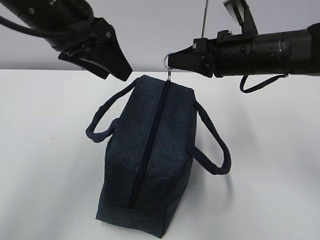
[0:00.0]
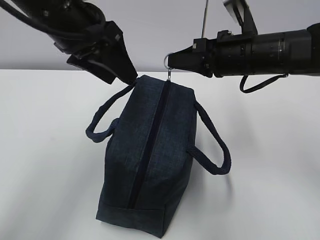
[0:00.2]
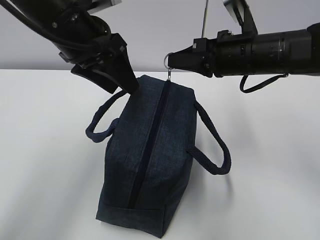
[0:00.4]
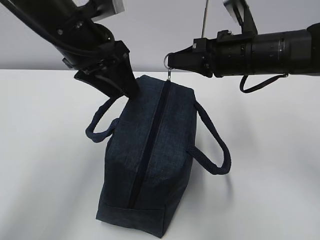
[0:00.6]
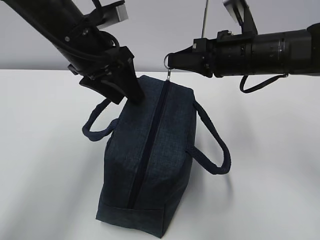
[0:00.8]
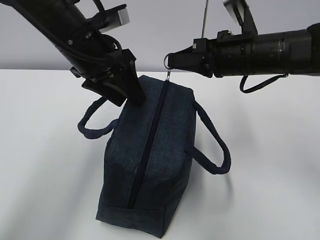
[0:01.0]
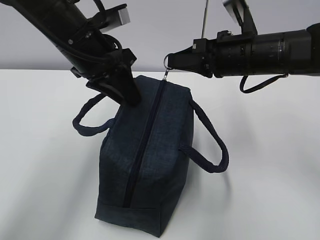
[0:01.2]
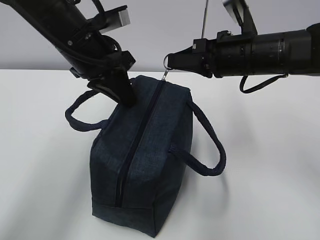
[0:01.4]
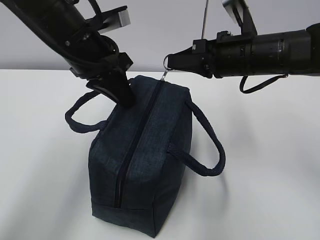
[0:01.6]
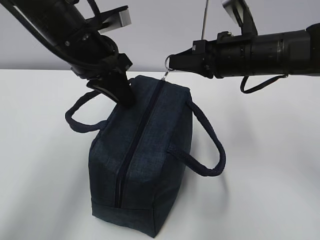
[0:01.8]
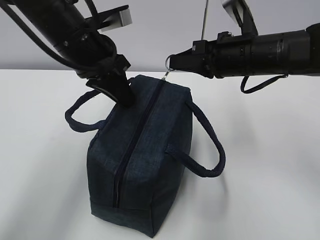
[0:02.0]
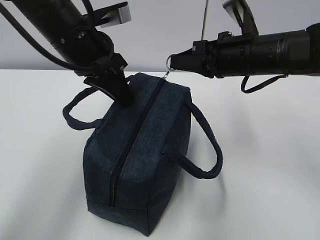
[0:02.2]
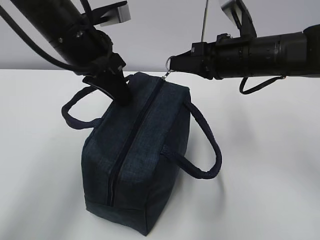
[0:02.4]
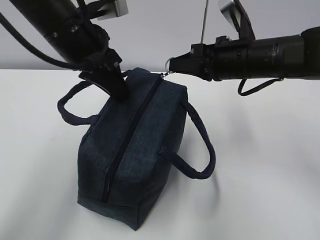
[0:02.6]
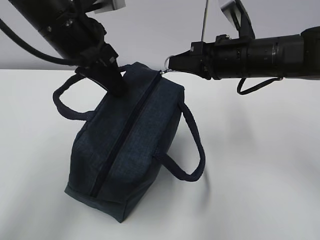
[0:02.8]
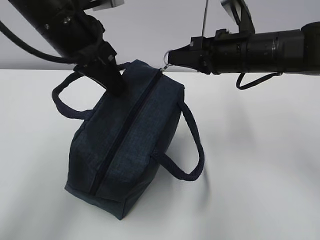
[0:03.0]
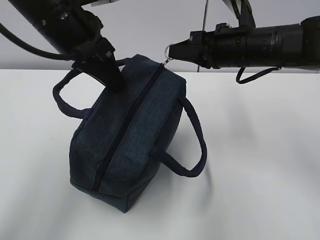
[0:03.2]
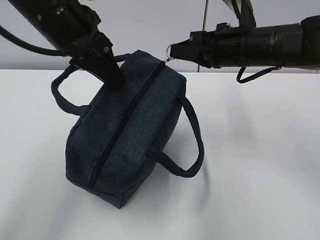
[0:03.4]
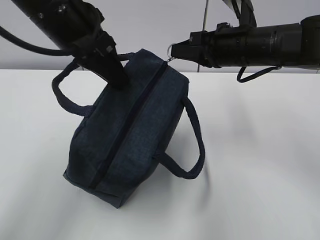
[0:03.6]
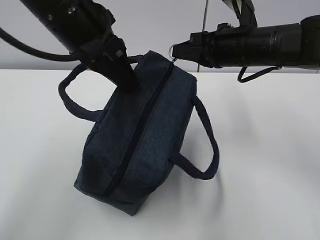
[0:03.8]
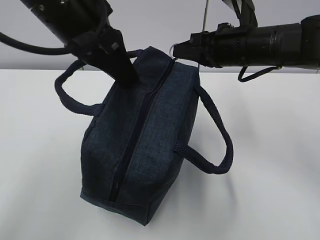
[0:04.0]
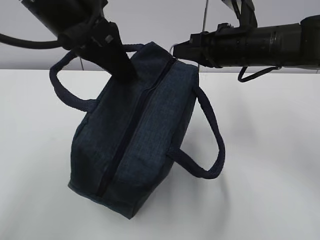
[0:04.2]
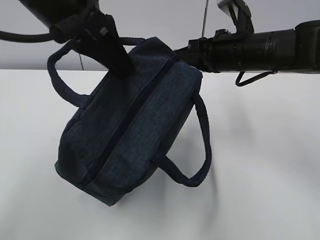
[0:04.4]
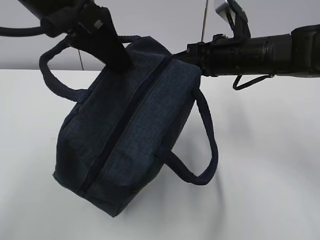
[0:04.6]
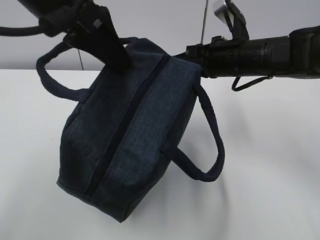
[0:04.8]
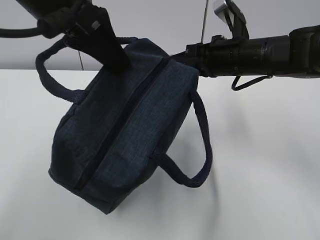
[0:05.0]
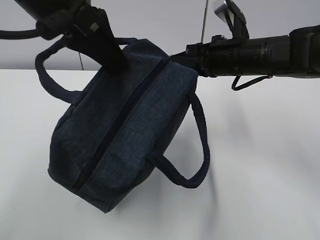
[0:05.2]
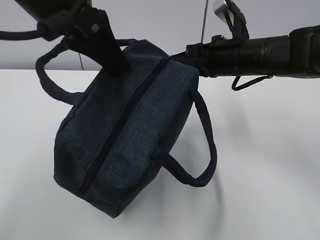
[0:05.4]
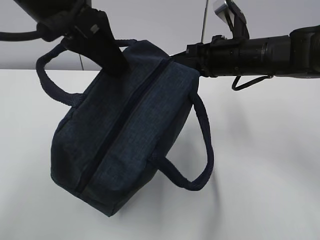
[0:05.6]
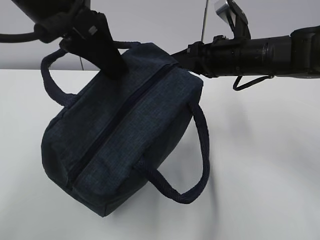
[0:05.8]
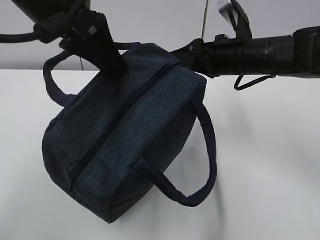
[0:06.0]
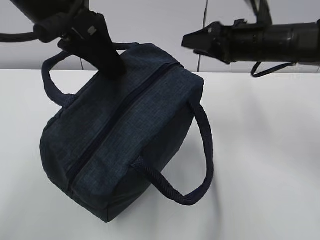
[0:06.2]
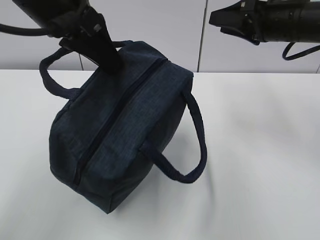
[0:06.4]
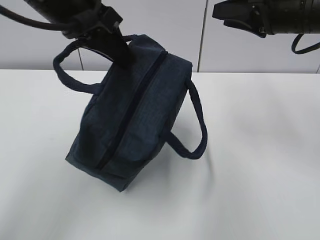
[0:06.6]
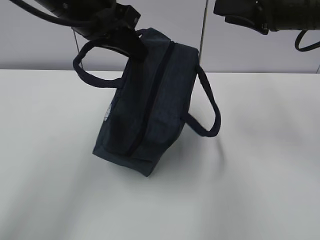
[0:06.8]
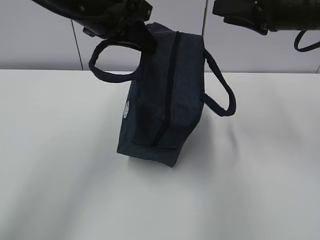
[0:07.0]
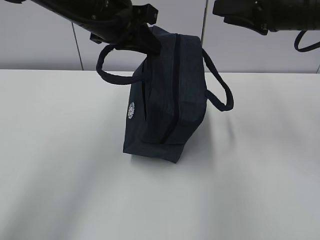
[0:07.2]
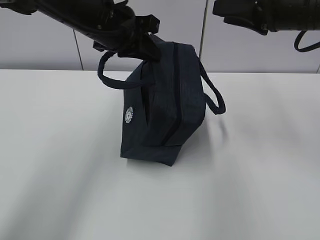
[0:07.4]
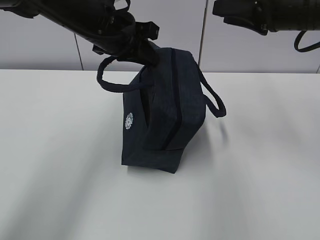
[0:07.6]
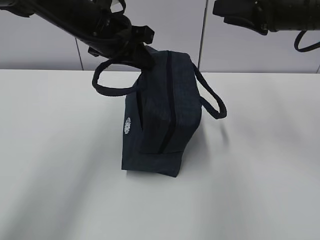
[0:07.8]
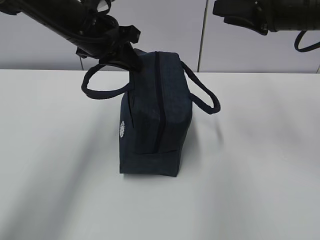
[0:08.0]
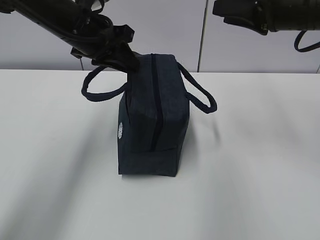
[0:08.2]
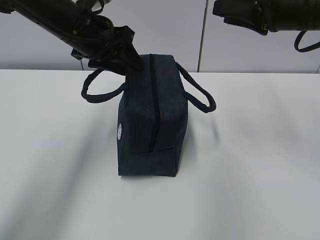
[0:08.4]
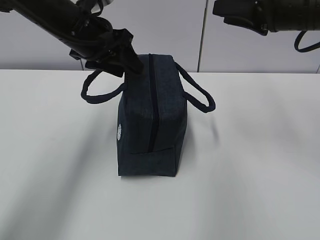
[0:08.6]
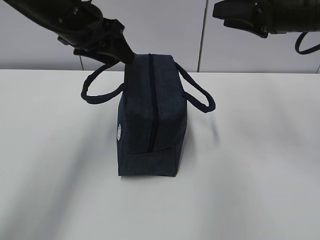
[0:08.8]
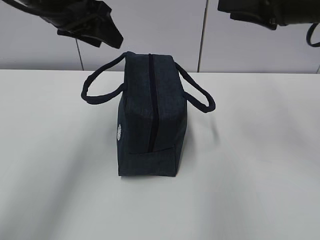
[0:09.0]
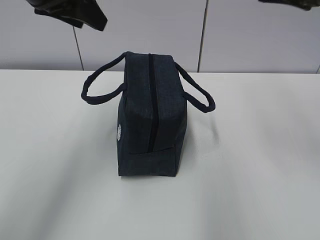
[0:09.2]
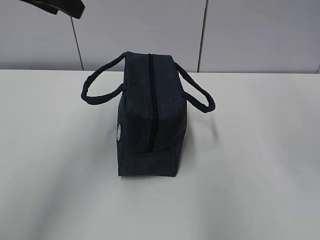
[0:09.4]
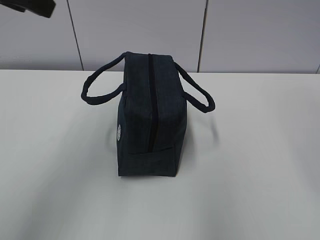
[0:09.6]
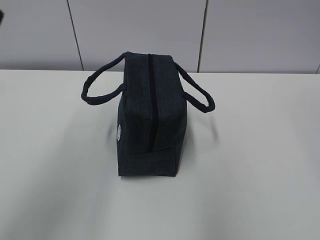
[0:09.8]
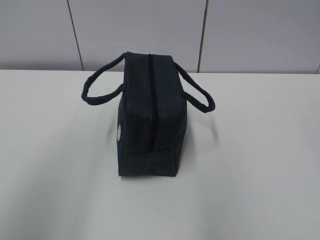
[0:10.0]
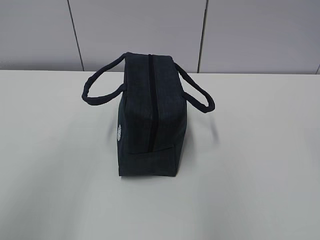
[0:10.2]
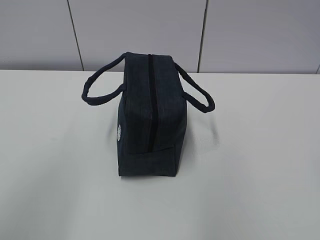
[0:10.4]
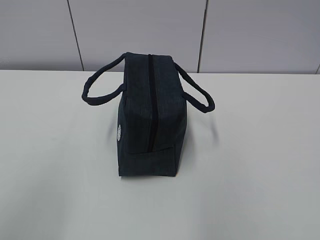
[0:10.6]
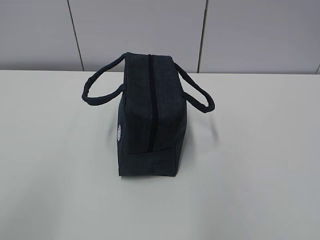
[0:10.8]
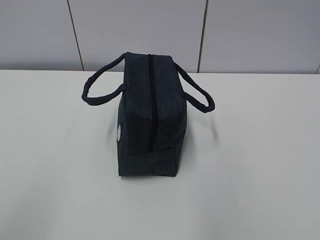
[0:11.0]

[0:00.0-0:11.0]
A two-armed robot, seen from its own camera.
0:00.0 to 0:01.6: The left gripper travels downward by some 5 cm, and closes up.
0:03.2 to 0:04.8: The left gripper is displaced upward and backward by approximately 10 cm.
0:04.8 to 0:06.2: The right gripper opens its fingers.
0:06.2 to 0:07.8: The left gripper is displaced forward and downward by some 15 cm; the right gripper travels upward by some 5 cm.
0:07.8 to 0:09.4: The left gripper moves upward, to the left and backward, roughly 15 cm, and opens up; the right gripper shifts about 10 cm upward and backward.
0:09.4 to 0:11.0: The right gripper moves backward, approximately 30 cm. The left gripper is displaced backward and to the left by approximately 35 cm.

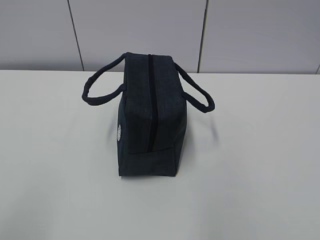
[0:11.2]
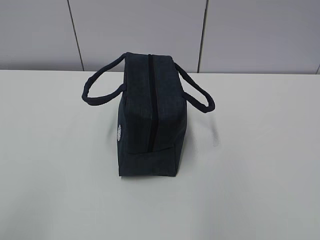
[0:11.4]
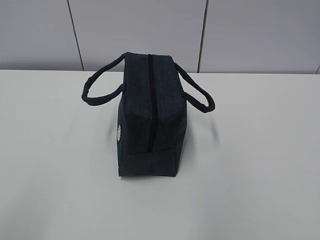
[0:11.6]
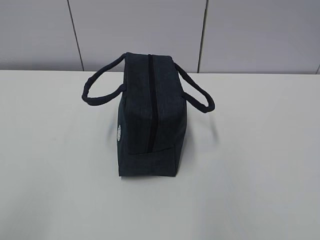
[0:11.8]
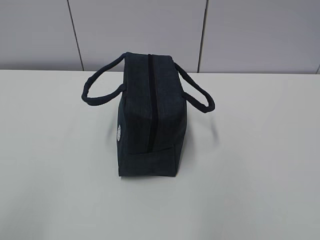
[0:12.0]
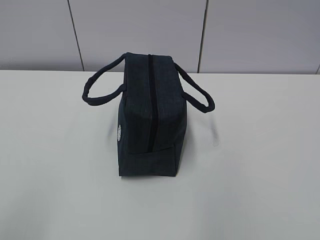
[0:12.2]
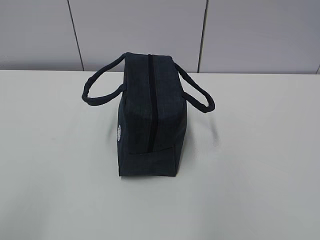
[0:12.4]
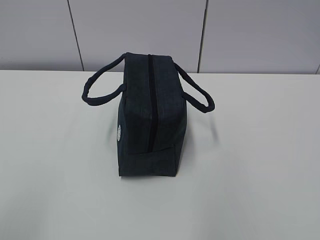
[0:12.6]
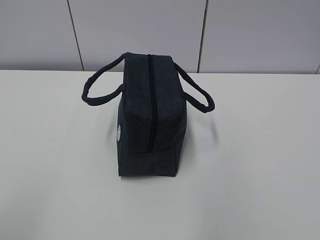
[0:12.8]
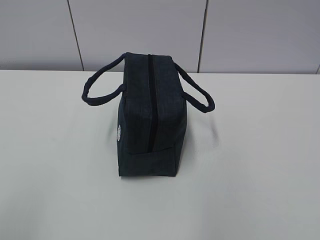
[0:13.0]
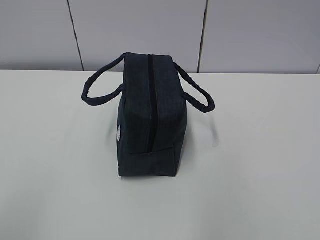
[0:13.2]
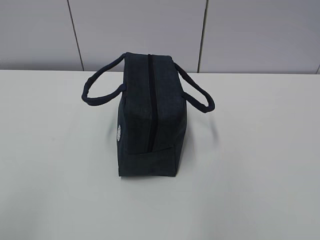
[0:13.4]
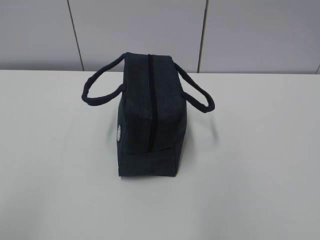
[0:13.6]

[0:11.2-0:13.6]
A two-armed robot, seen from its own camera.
0:11.2 to 0:12.4: Both grippers stay put.

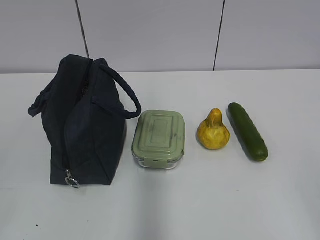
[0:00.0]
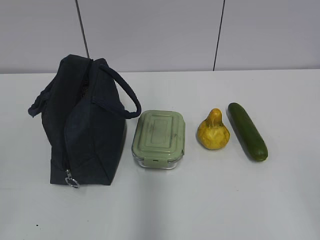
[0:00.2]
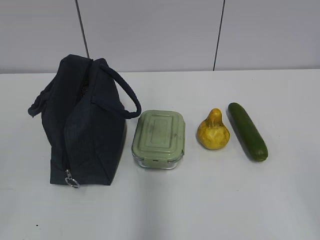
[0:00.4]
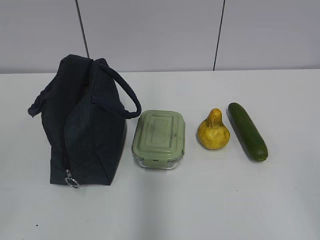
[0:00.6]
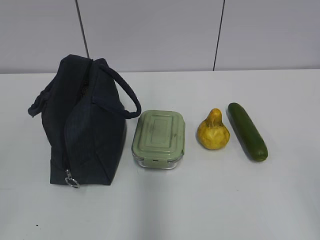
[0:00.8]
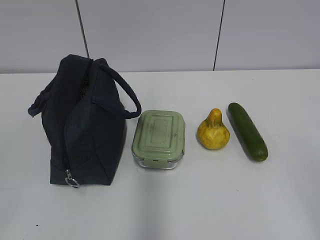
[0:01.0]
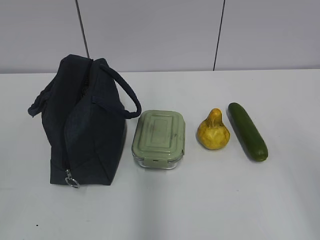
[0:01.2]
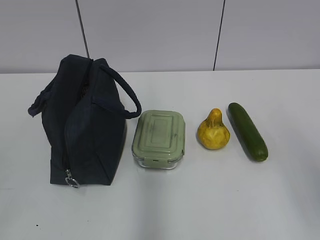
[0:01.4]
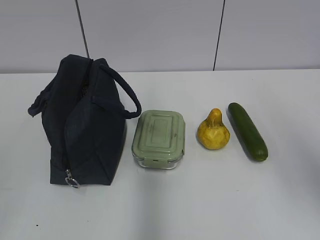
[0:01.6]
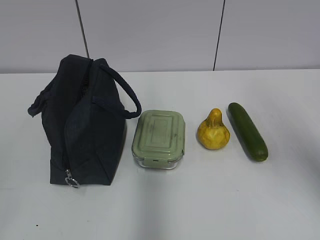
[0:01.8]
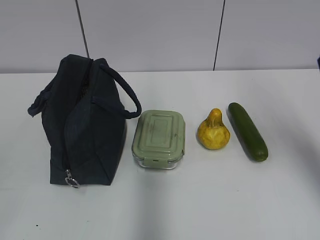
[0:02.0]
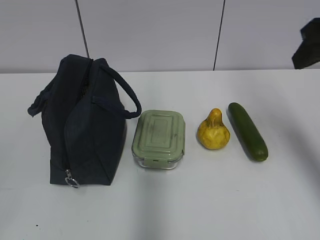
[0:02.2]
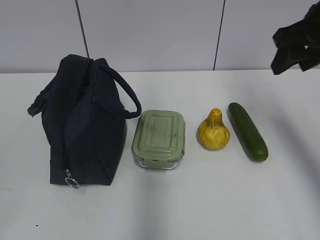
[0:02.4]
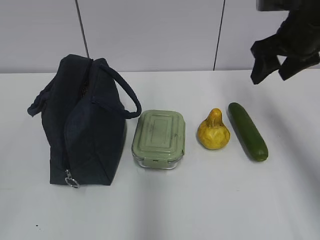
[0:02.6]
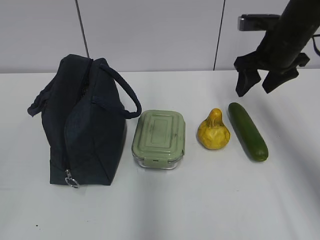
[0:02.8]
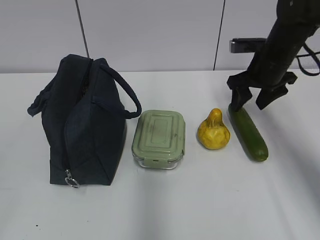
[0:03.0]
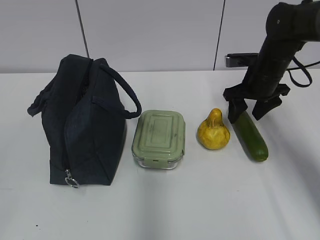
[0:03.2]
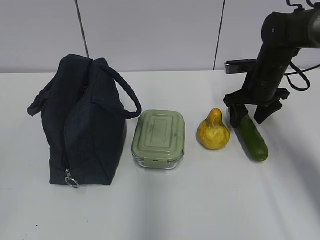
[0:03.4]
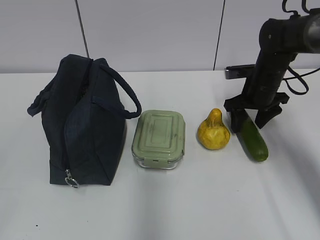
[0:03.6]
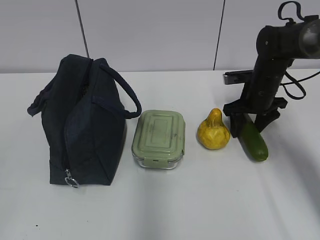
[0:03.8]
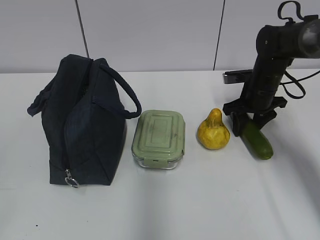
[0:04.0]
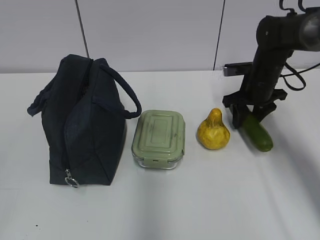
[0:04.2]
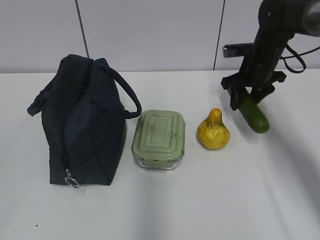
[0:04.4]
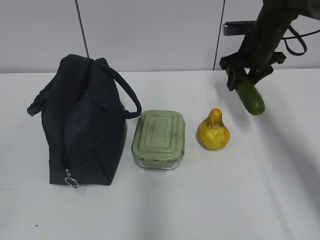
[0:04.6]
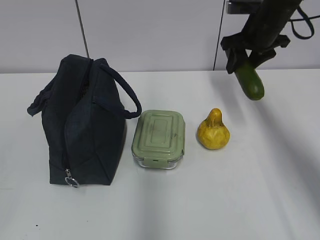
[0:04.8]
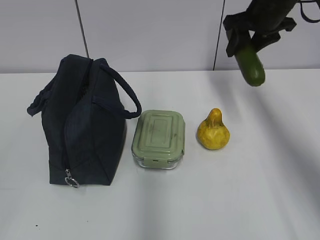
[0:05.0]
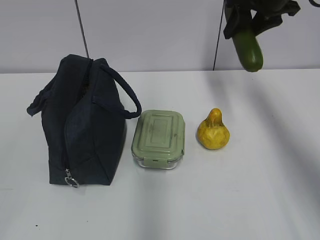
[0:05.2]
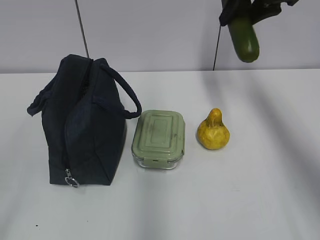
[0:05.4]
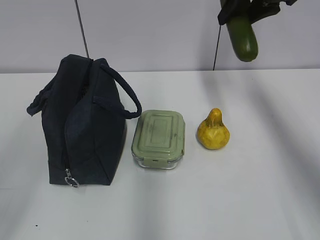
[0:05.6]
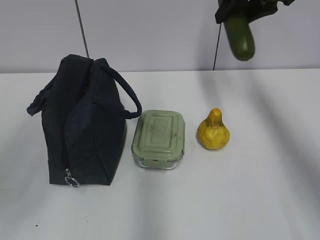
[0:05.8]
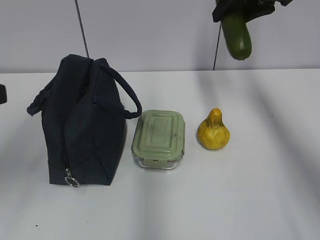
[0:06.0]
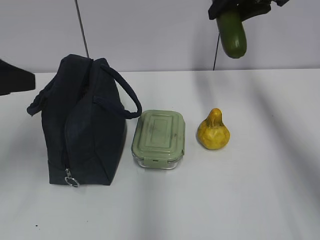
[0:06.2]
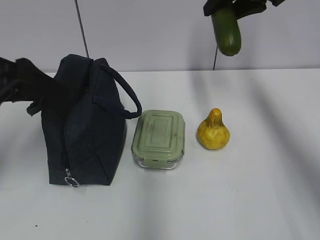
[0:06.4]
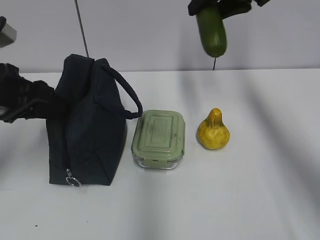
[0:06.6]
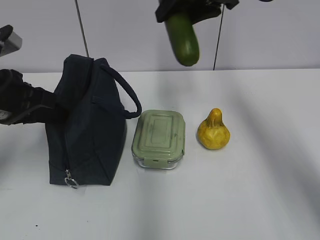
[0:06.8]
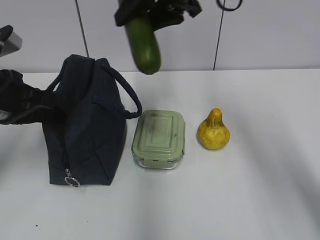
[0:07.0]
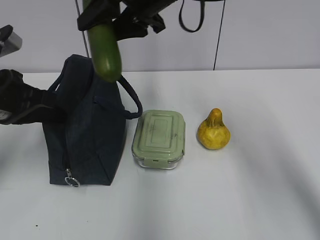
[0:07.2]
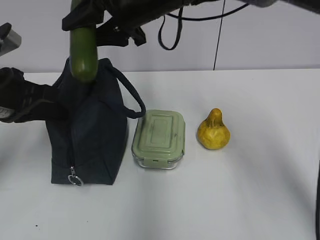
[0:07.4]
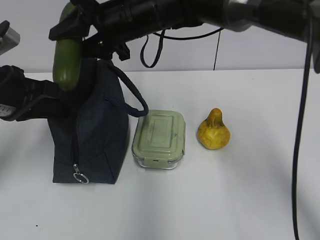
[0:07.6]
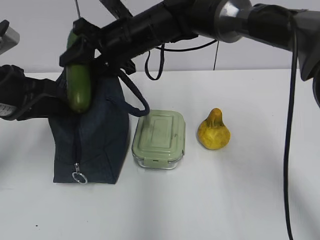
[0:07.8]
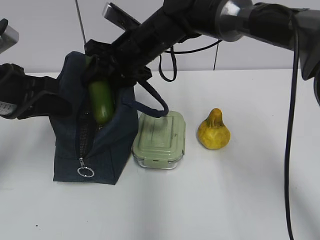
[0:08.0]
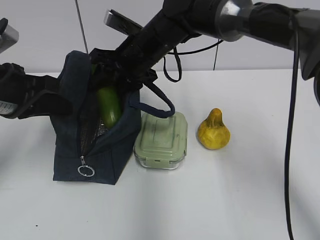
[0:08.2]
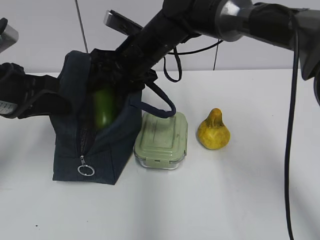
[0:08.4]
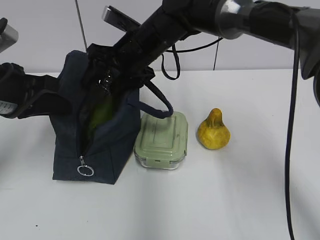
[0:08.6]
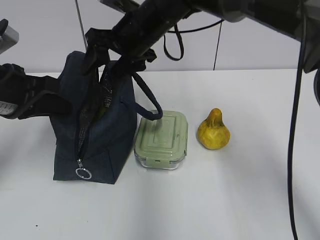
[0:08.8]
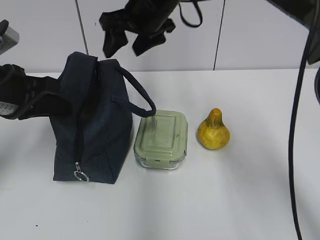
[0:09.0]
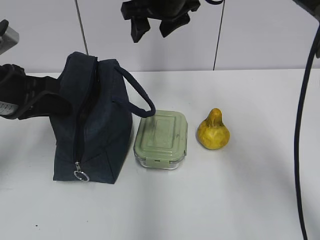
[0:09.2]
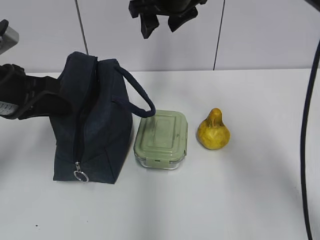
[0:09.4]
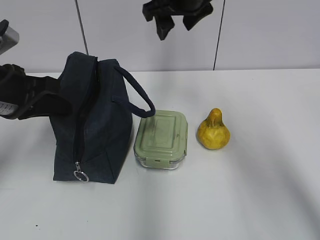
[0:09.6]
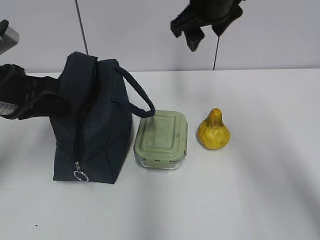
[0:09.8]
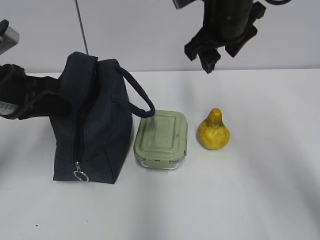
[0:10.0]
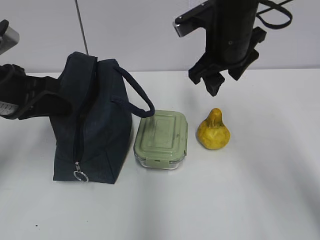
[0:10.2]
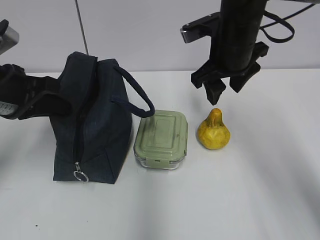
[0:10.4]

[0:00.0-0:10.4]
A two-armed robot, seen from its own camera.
Step, 0:00.0 to 0:03.8: Grab the cucumber with your right hand.
Step, 0:04.2 to 0:07.6: Grab the lunch bag with your left hand.
Step, 0:07.8 to 0:08.6: Place it into the bag with your right hand.
0:01.4 to 0:03.0: The right gripper travels forward by some 35 cm.
0:04.4 to 0:06.0: The right gripper heads upward, covering approximately 20 cm. The left gripper shifts roughly 15 cm forward.
0:06.0 to 0:07.4: The left gripper shifts approximately 15 cm forward and downward, and closes its fingers, while the right gripper moves to the left, approximately 20 cm.
0:07.4 to 0:09.0: The right gripper reaches roughly 10 cm downward, then returns.
0:09.0 to 0:10.4: The right gripper travels to the right and backward by roughly 10 cm.
